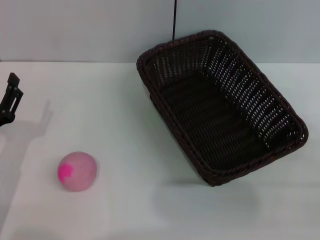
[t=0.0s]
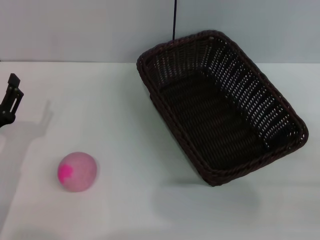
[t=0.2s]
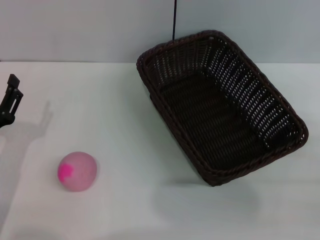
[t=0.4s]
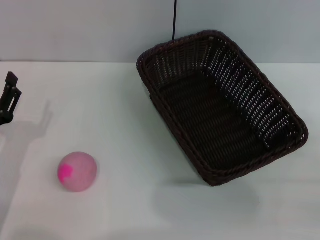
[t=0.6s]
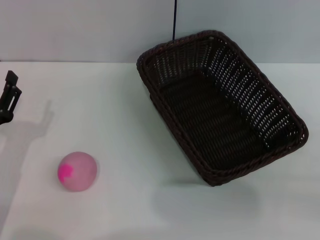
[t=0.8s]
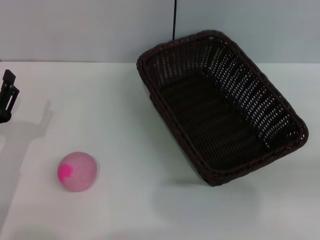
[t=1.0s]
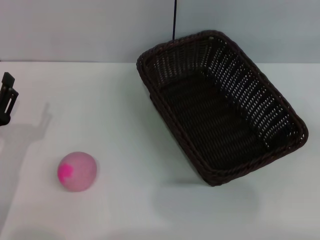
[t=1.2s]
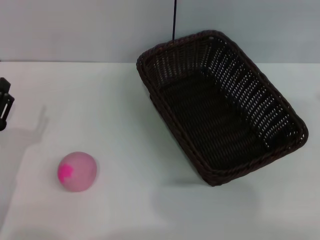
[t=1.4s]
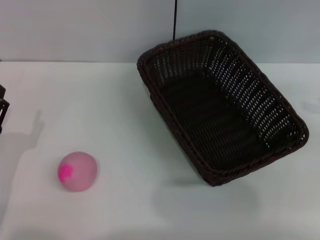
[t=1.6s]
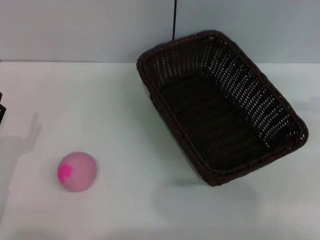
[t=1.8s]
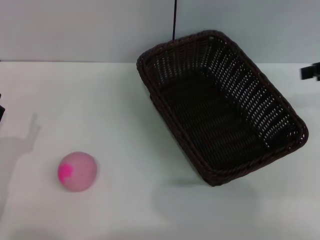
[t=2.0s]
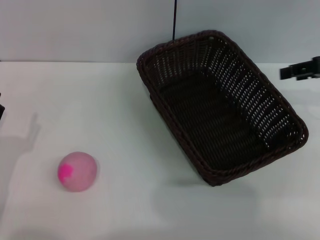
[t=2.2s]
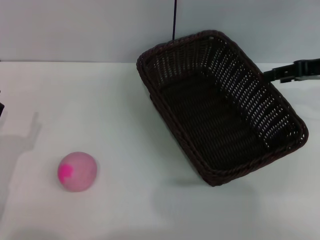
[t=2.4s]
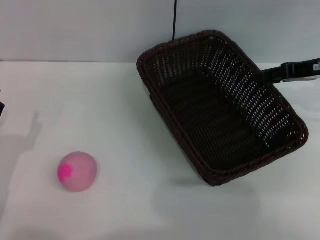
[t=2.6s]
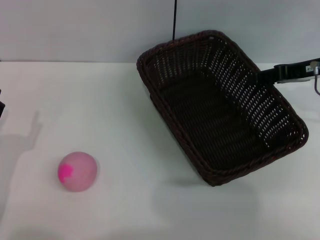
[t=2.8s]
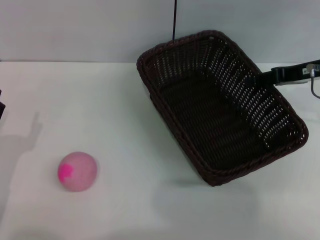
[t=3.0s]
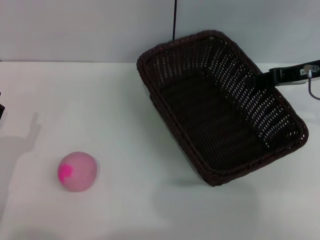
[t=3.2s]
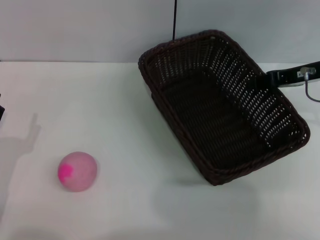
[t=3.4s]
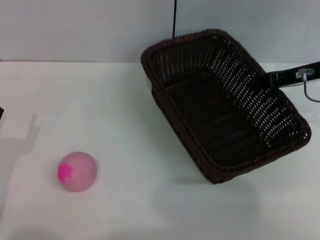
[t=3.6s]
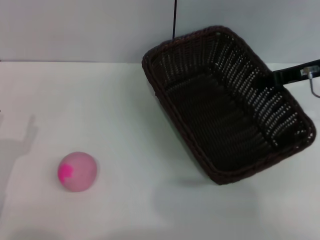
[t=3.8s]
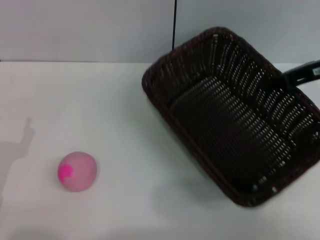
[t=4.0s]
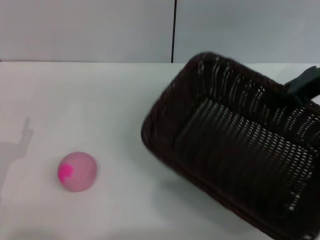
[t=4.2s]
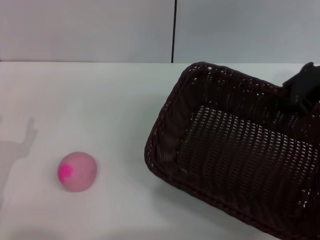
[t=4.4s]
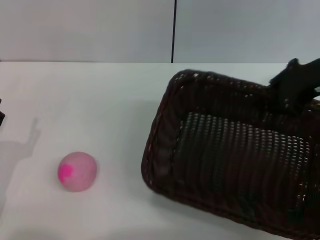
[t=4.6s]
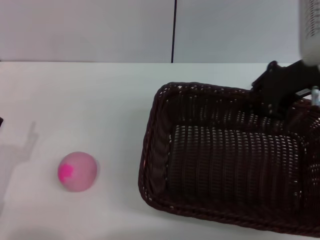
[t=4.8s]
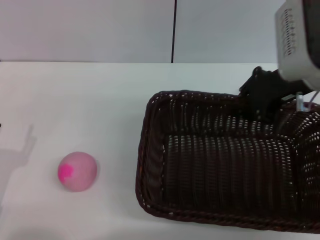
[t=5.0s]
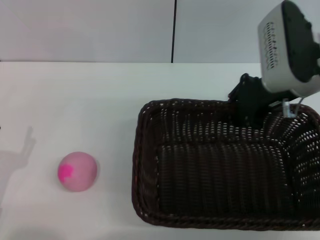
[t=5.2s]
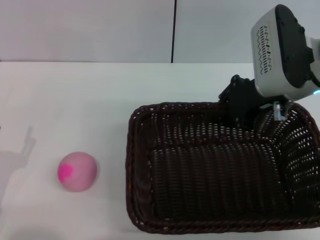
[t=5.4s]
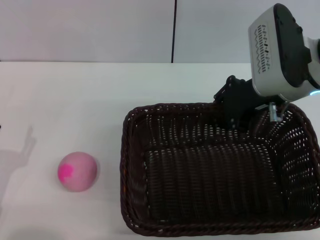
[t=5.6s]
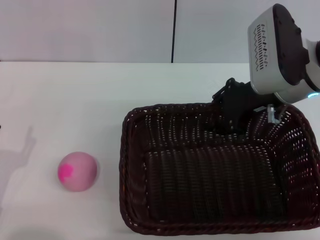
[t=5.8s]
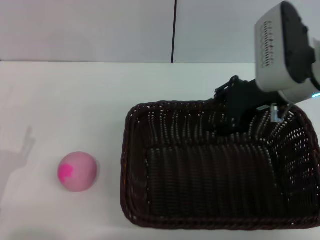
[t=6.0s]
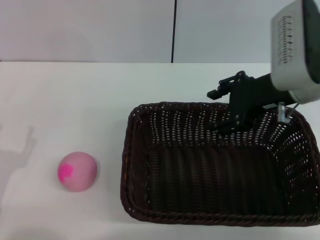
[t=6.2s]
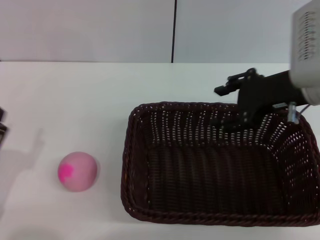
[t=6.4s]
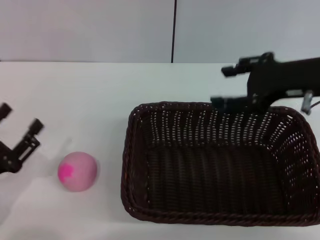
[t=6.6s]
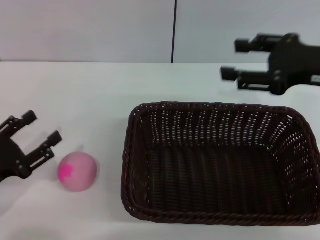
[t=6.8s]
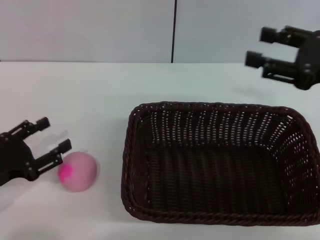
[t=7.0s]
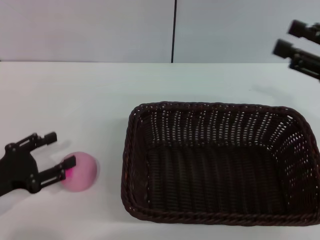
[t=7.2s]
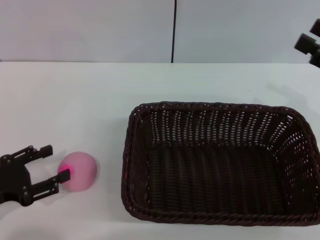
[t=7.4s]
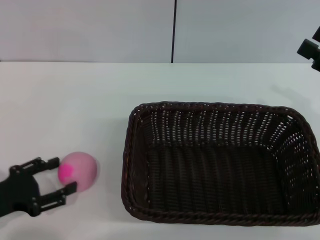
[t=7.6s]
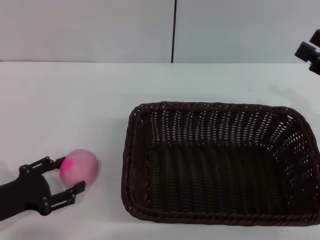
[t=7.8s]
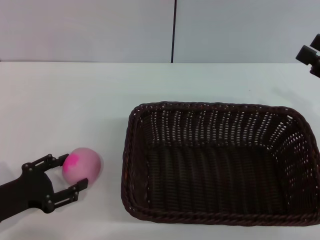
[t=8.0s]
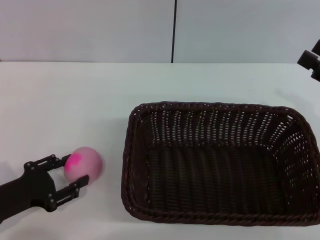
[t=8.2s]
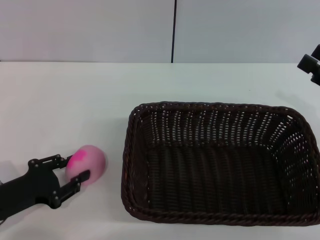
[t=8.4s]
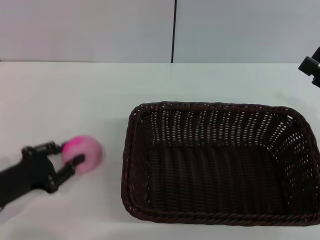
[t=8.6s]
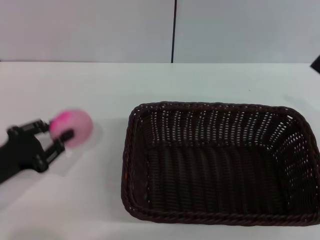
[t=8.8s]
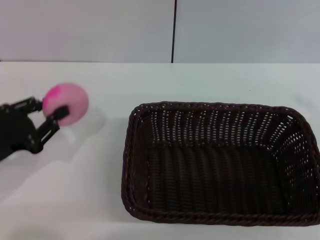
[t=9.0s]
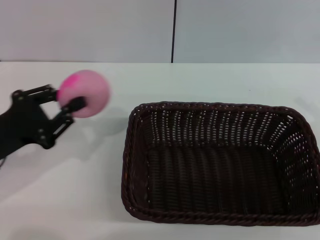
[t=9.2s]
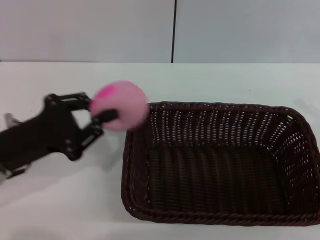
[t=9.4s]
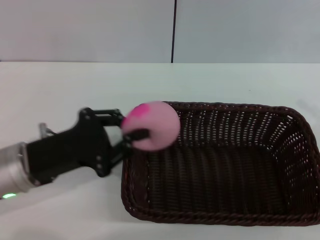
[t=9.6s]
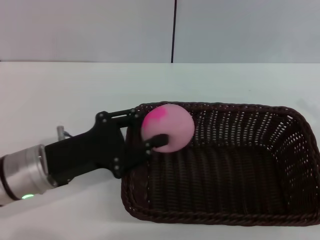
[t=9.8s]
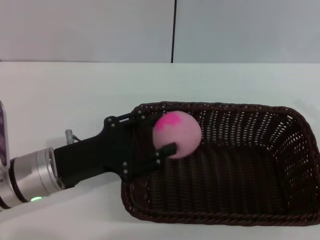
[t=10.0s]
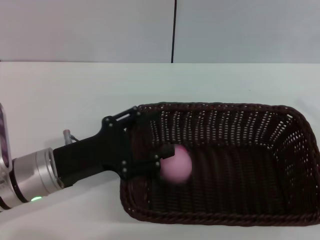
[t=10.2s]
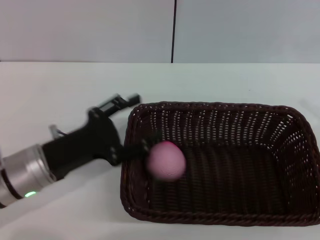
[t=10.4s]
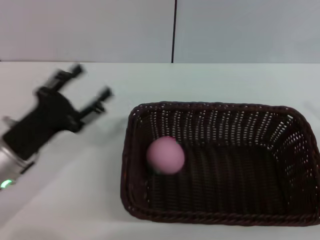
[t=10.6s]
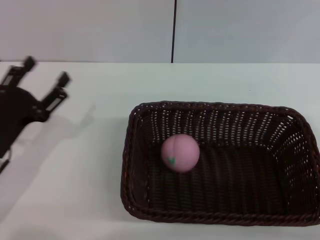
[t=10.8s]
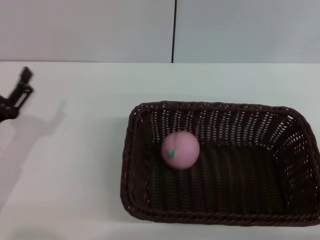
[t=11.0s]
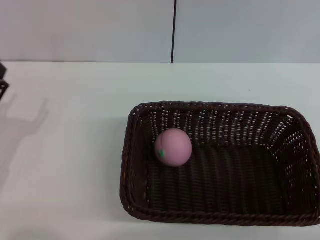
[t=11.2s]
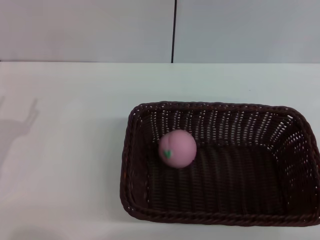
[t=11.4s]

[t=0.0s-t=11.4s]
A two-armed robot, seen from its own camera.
Step, t=0.0s to t=4.0s: Pick up the dark basket with the right gripper.
Step, t=4.2s to t=6.4s: Place the dark basket in the center of view with the right gripper.
Step, t=6.6s to t=8.8s: Pick up the peach with the left gripper.
Step, t=9.0s to t=10.4s: Place the peach into the basket with the left gripper.
t=1.4s to t=2.8s: The right gripper travels to the left, forward and downward by about 20 cm.
t=2.8s to t=4.2s: The right gripper moves upward, roughly 5 cm, and closes.
t=4.2s to t=5.6s: The right gripper goes roughly 10 cm to the left.
t=5.6s to t=7.2s: The right gripper is displaced to the right and backward by approximately 15 cm, and opens, while the left gripper moves roughly 5 cm.
t=7.2s to t=8.6s: The left gripper closes its fingers; the right gripper shifts approximately 5 cm downward.
t=8.6s to t=10.0s: The left gripper shifts some 10 cm to the right.
t=10.0s to t=11.4s: The right gripper goes roughly 10 cm backward. Meanwhile the left gripper travels to the left by approximately 10 cm, and opens its fingers.
